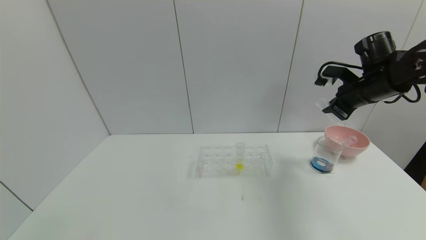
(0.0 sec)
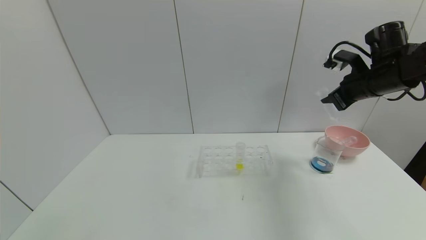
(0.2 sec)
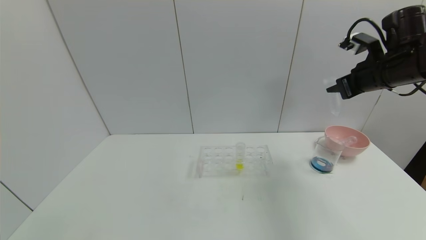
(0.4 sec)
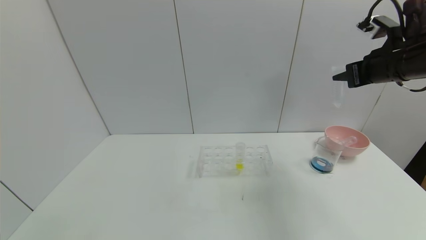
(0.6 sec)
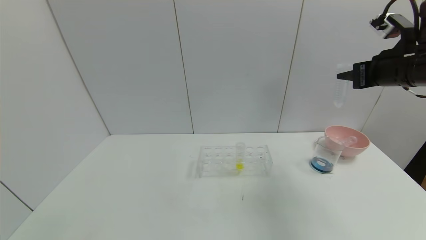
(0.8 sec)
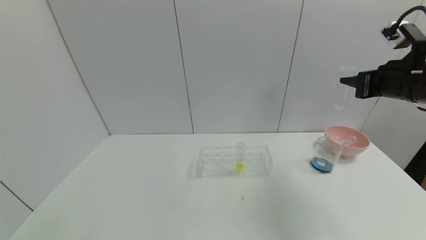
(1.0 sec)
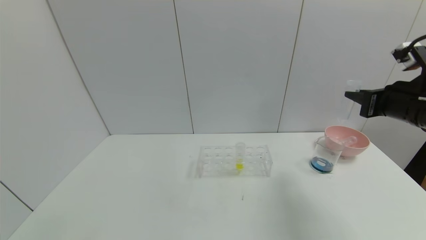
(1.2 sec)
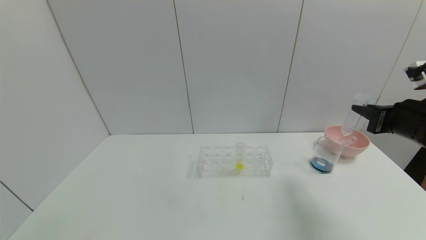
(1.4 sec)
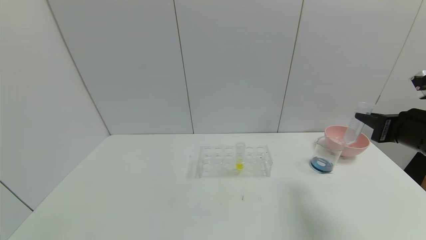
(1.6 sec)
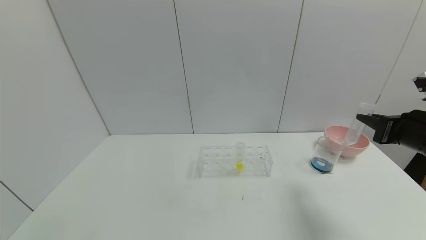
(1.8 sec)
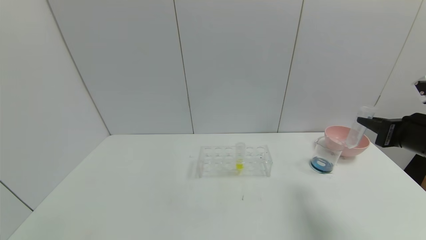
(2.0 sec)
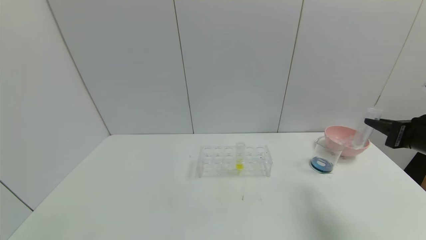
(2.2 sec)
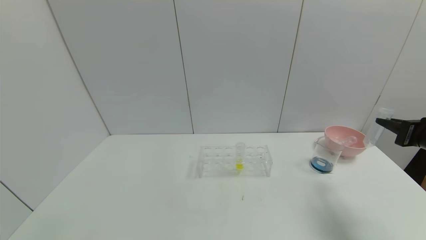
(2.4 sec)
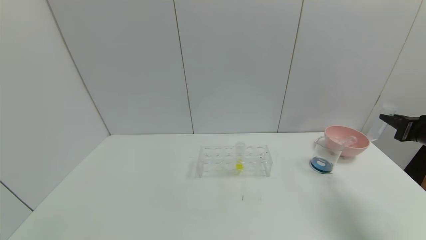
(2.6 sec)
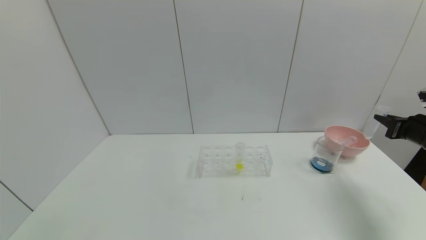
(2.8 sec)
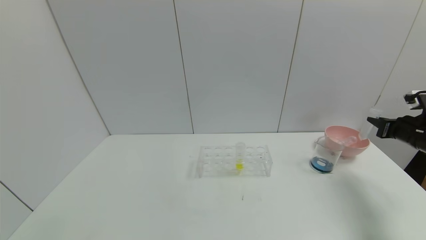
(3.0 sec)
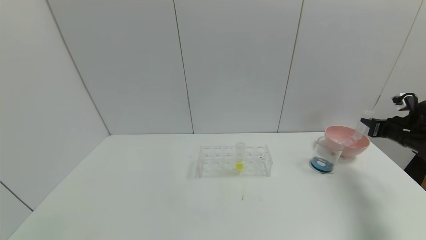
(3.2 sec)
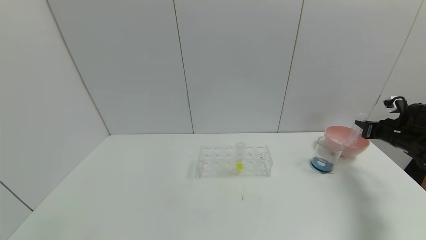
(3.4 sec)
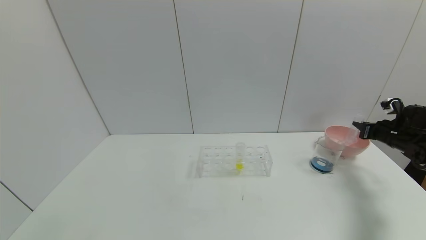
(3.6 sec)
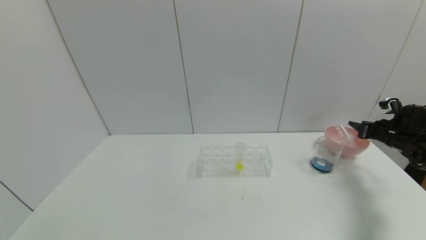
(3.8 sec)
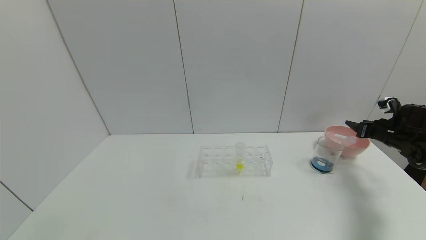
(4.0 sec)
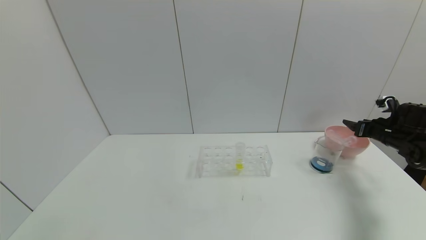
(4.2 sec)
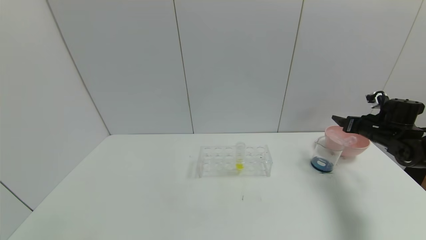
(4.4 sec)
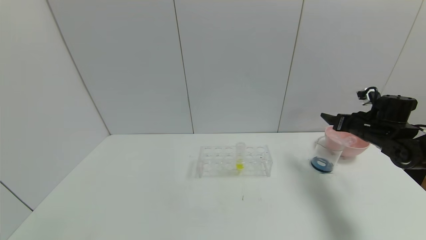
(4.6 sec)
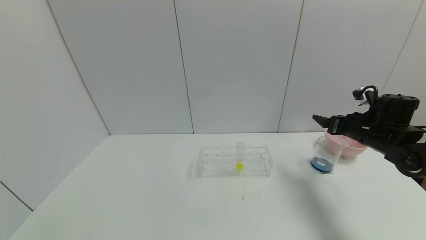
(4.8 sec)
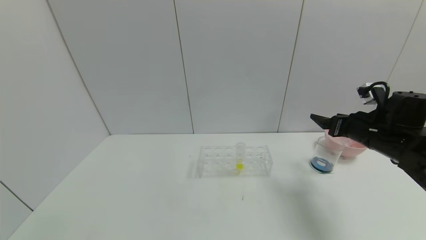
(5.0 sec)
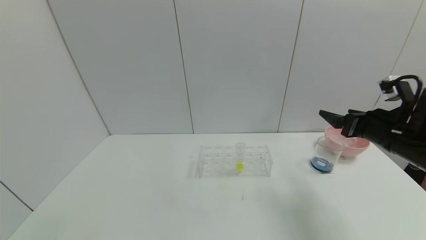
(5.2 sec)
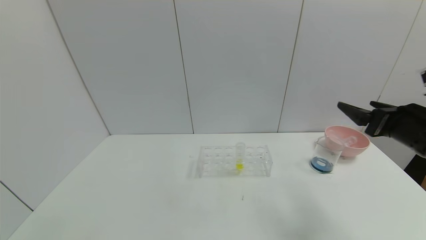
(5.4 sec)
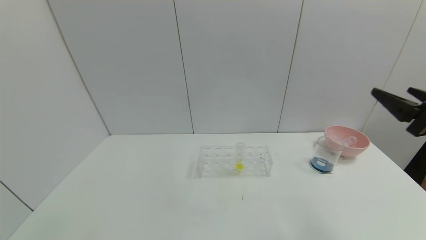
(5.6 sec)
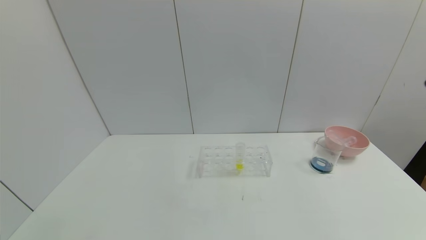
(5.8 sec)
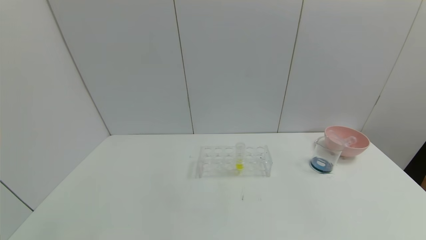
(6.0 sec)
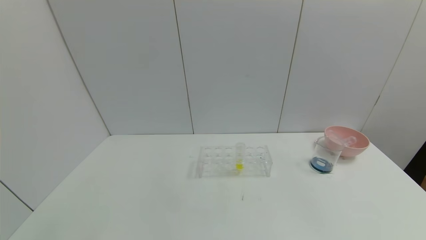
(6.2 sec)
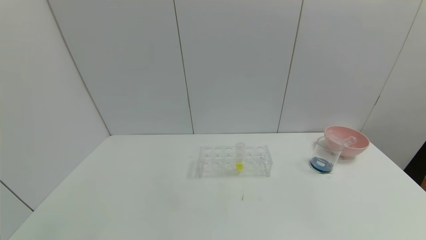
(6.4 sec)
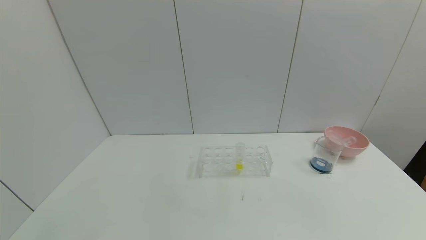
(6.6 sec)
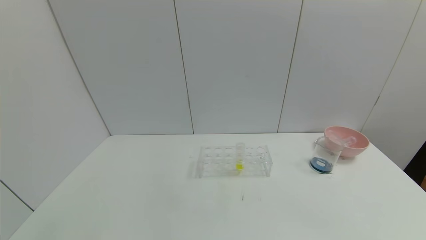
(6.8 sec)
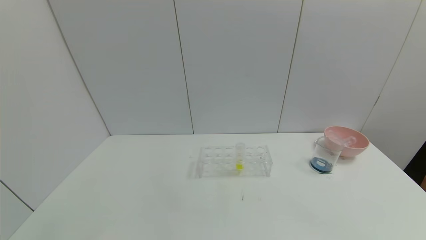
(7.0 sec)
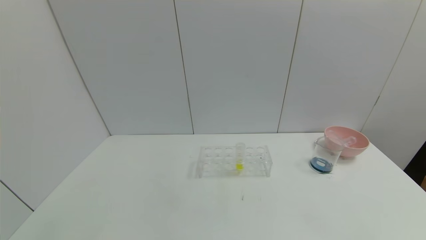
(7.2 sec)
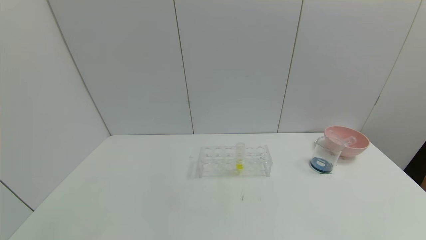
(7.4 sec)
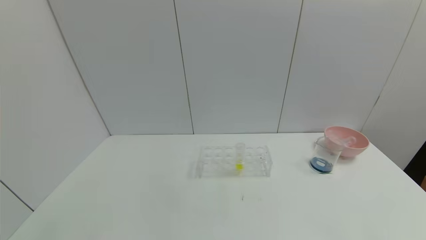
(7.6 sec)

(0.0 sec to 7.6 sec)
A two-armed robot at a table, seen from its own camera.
Task of the whole recording: pick up the test tube with red pigment and the test tube with blue pigment by grippers and pour them into the container.
Step, 0.6 sec - 4.2 sec: Place the test tube into the bowl with right gripper.
0.0 sec - 1.6 sec: The right gripper shifts roughly 15 cm backward.
1.6 sec - 3.0 sec: The right gripper is displaced to the right, forward and downward by about 20 cm.
3.0 sec - 4.6 sec: The right gripper heads to the left, covering some 10 cm, and opens.
4.6 sec - 6.0 sec: The right gripper moves backward, about 30 cm.
